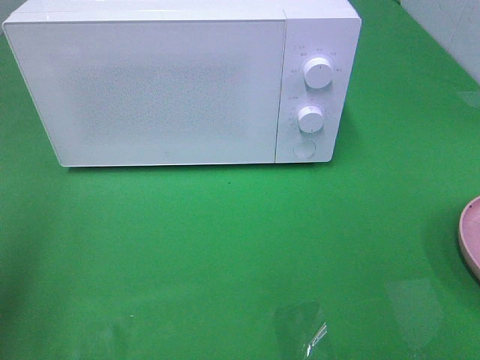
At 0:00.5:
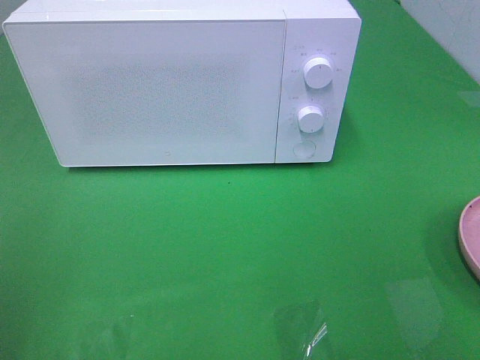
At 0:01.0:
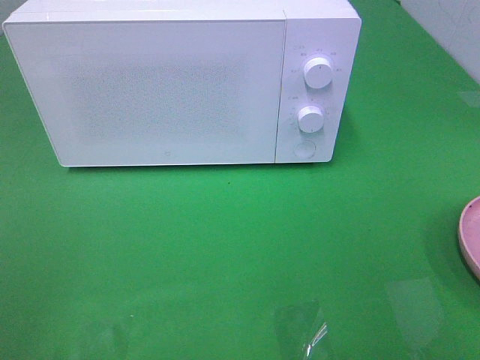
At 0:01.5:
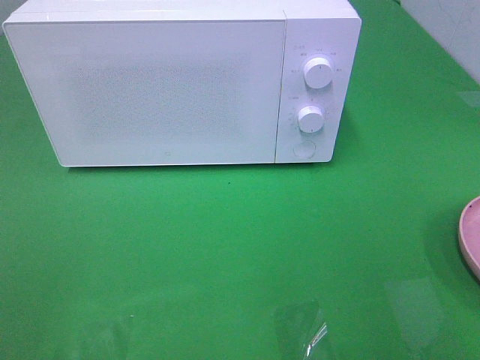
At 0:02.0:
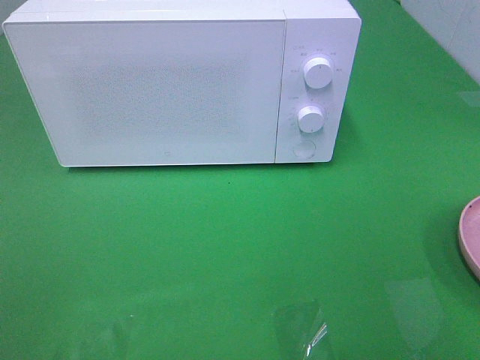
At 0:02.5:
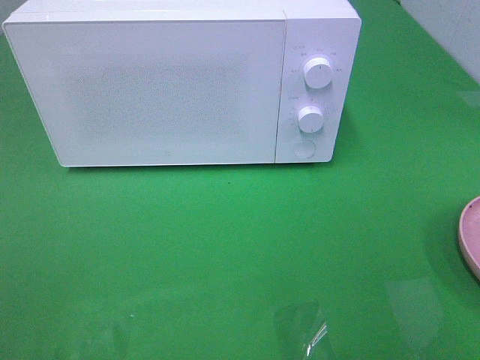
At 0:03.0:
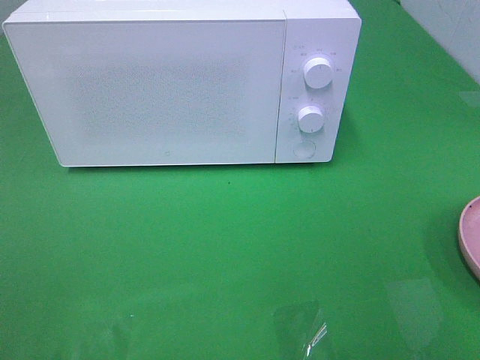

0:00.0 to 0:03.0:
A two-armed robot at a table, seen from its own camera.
Task of the whole recording: Heat the burger.
0:00.0 to 0:01.5: The left gripper goes approximately 15 cm backward.

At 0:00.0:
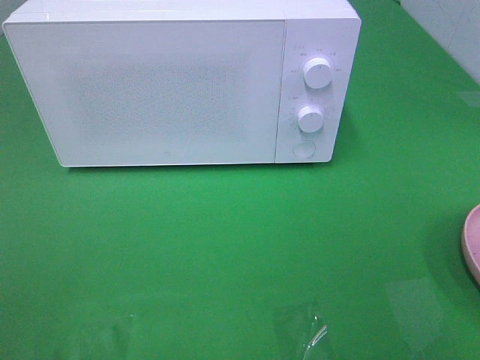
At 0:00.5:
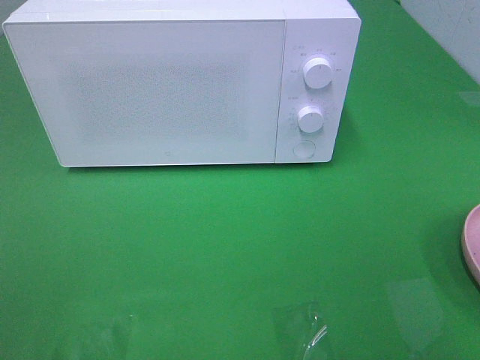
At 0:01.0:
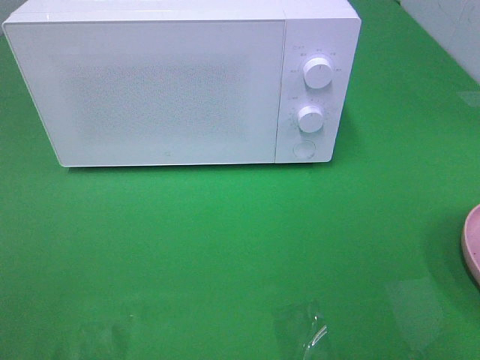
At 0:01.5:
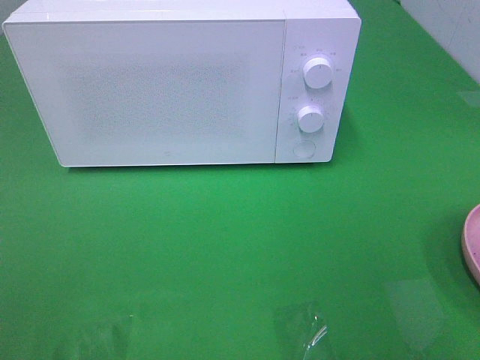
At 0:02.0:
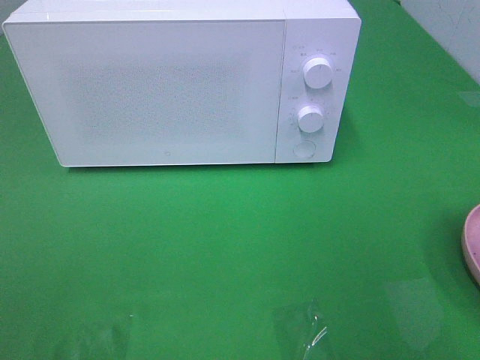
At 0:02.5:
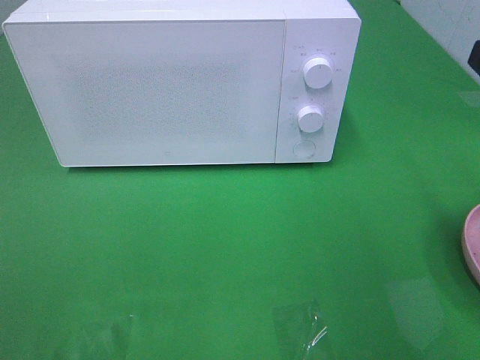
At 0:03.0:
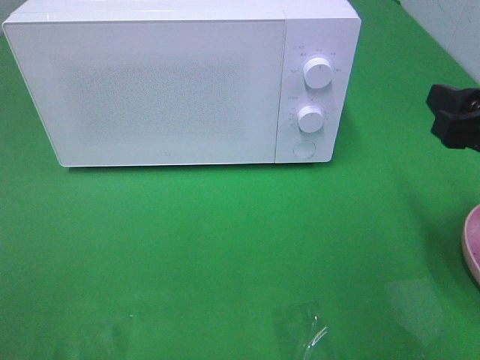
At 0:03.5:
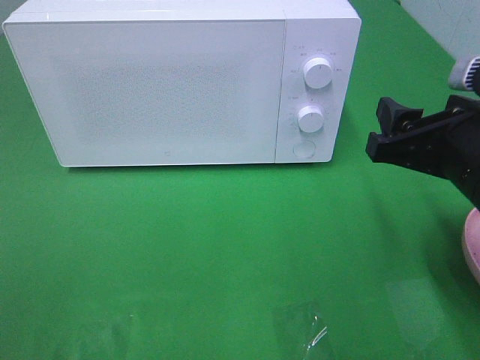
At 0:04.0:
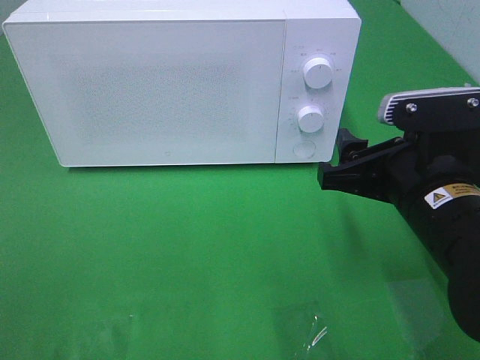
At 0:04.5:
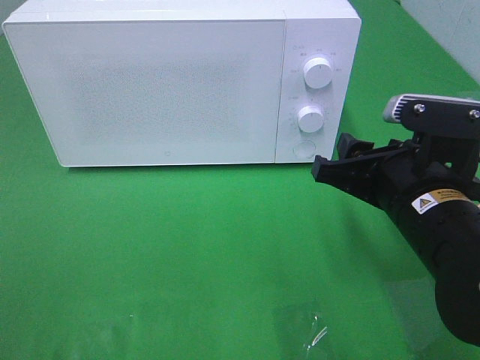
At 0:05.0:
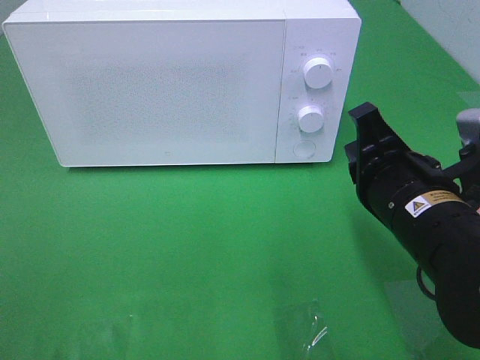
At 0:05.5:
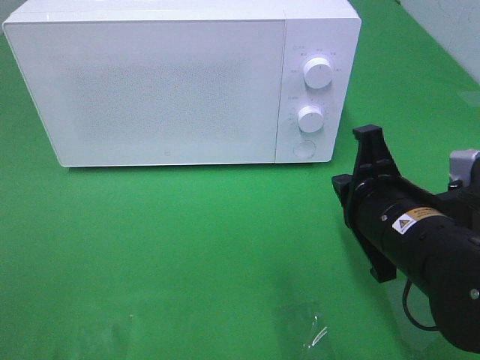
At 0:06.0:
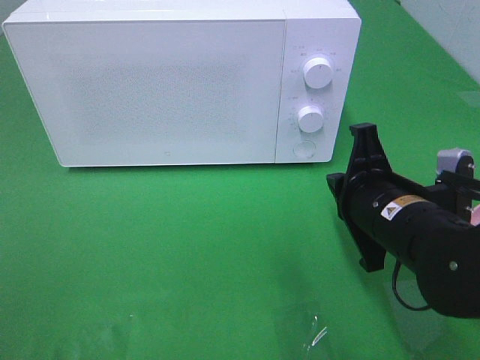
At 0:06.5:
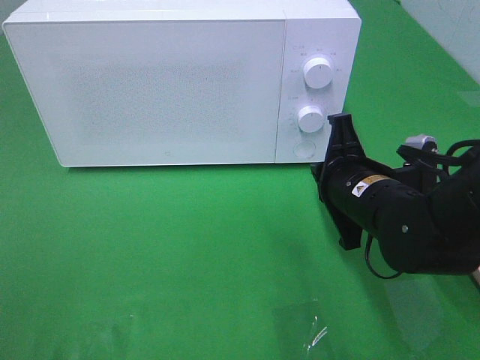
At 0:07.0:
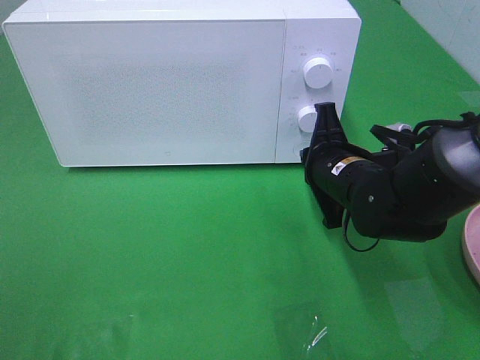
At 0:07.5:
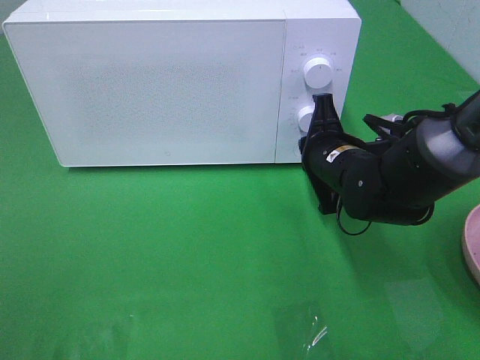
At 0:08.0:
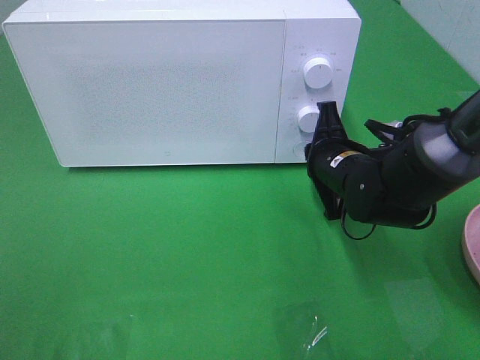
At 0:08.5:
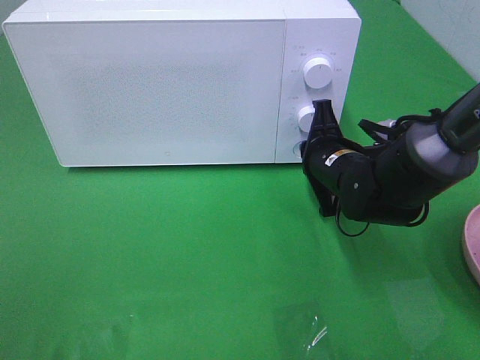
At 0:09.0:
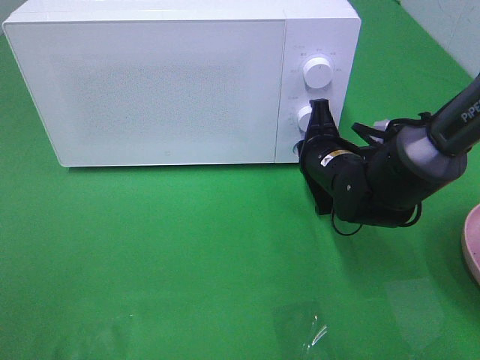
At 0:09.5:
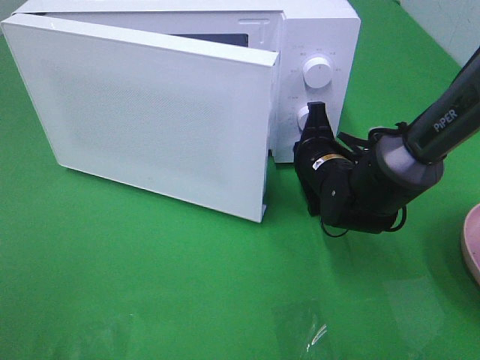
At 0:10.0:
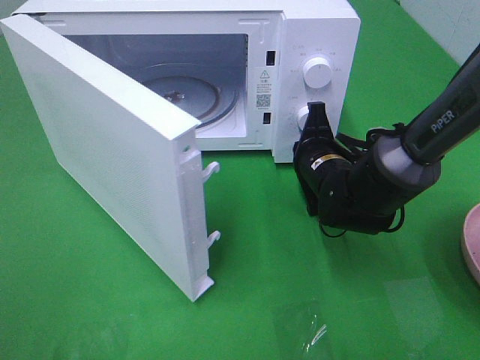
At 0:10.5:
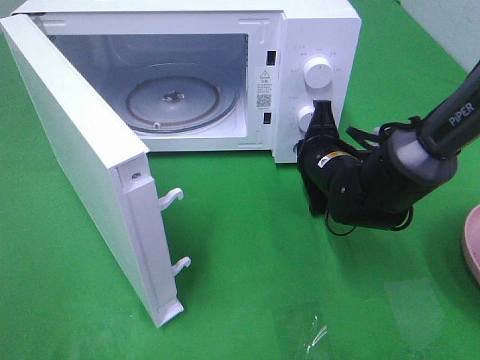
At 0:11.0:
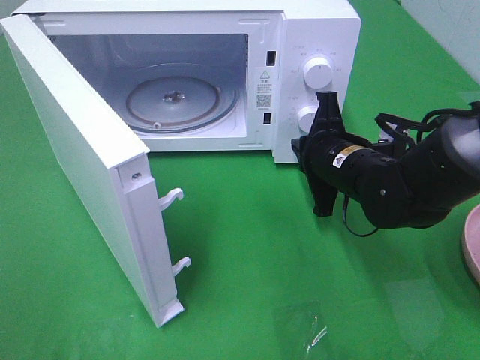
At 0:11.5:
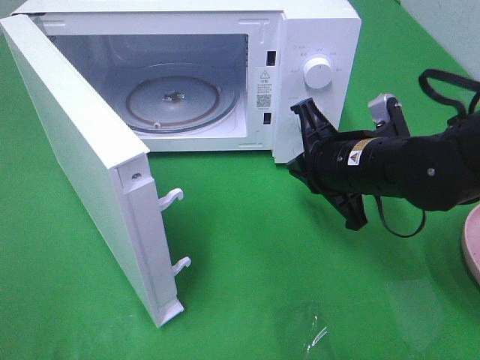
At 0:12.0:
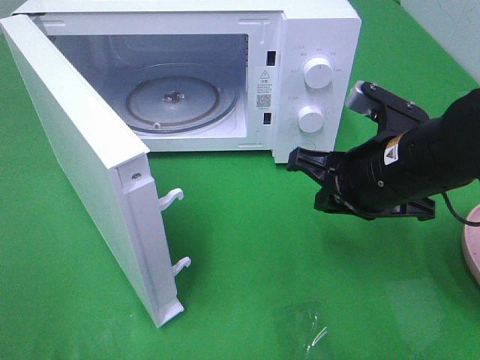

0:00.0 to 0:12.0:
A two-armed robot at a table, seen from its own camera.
Task of the whole recording: Heat the burger.
Step, 0:00.0 to 0:09.0: Right hand: press the switch.
0:02.0 to 0:04.0: The right gripper goes about 20 cm downward, to the left and forward.
0:04.0 to 0:06.0: The right gripper ends up some 5 cm from where it was, and closes up.
0:06.0 to 0:08.0: The right gripper moves forward, roughly 10 cm.
0:10.0 to 0:12.0: The right gripper heads backward and upward, covering about 15 cm.

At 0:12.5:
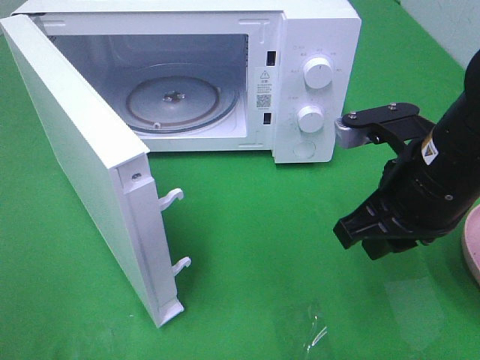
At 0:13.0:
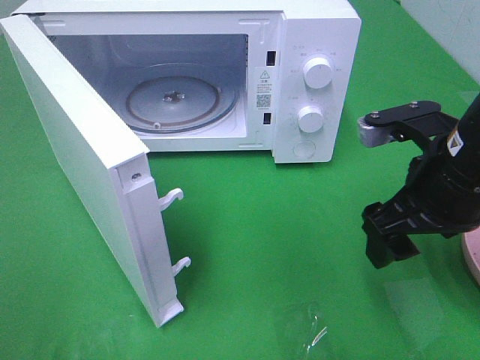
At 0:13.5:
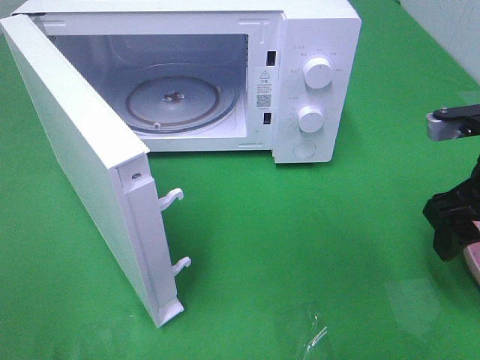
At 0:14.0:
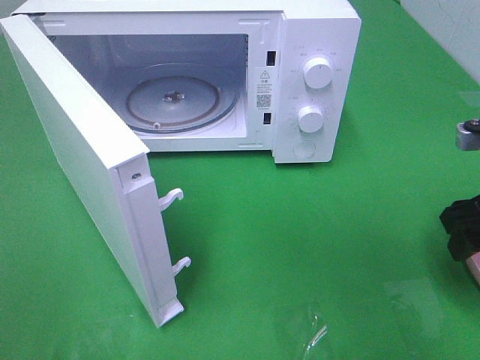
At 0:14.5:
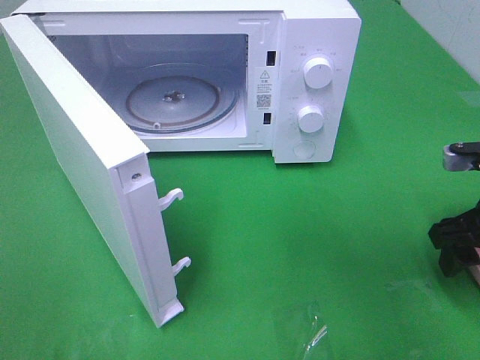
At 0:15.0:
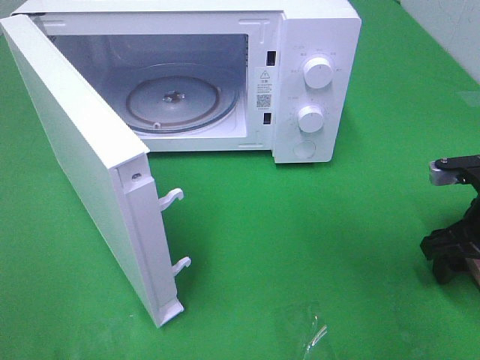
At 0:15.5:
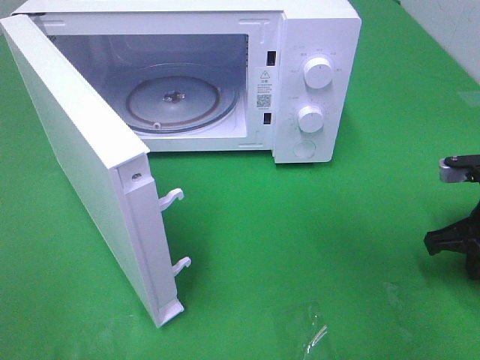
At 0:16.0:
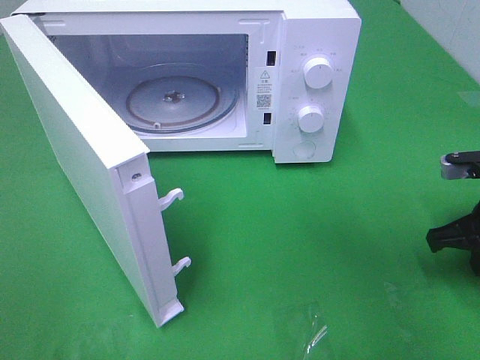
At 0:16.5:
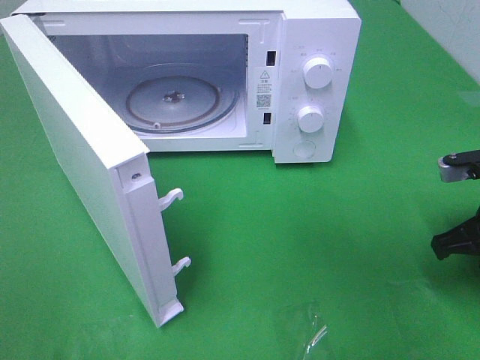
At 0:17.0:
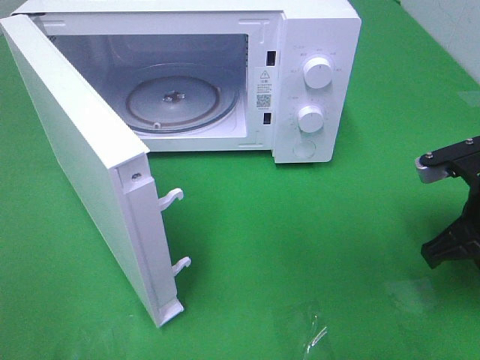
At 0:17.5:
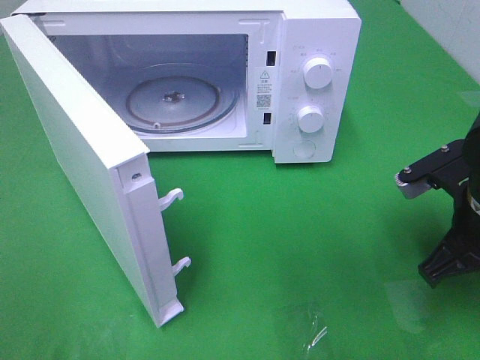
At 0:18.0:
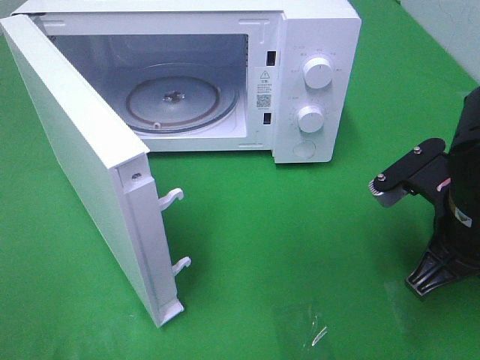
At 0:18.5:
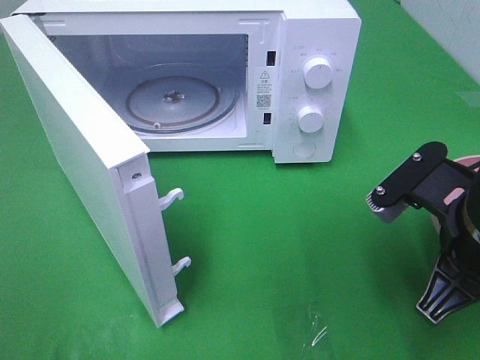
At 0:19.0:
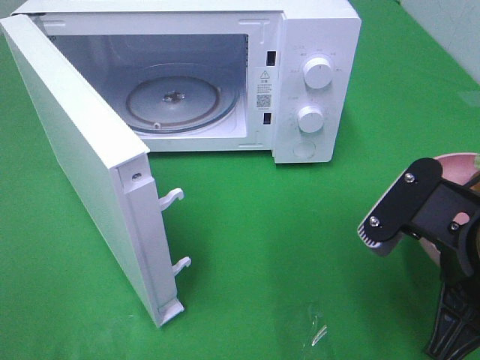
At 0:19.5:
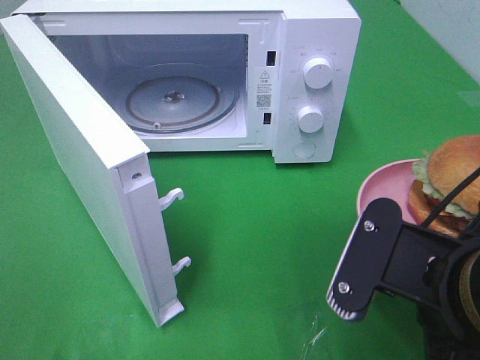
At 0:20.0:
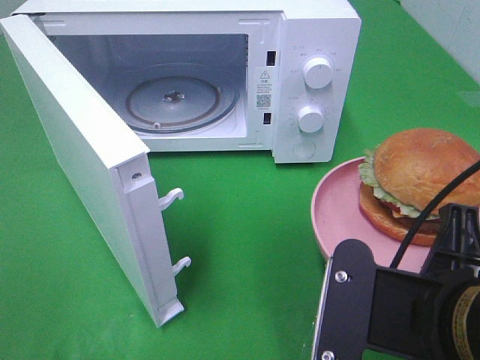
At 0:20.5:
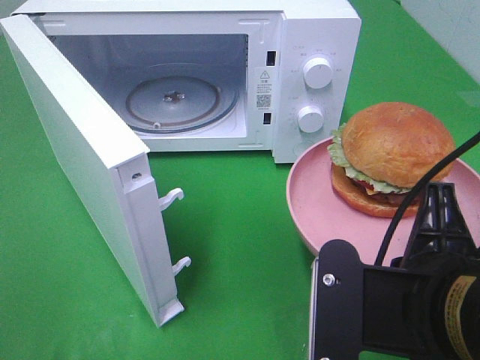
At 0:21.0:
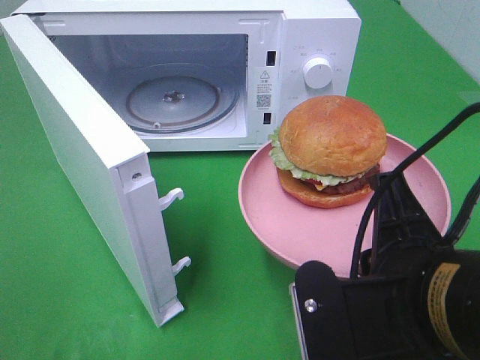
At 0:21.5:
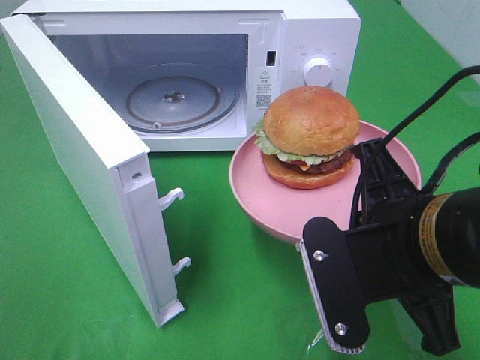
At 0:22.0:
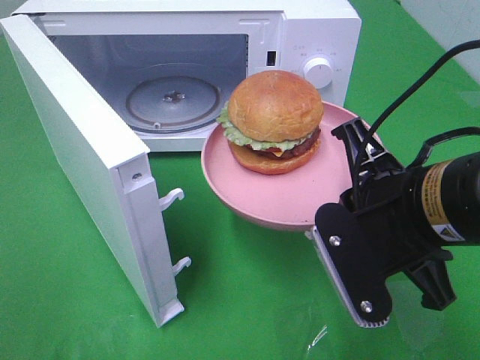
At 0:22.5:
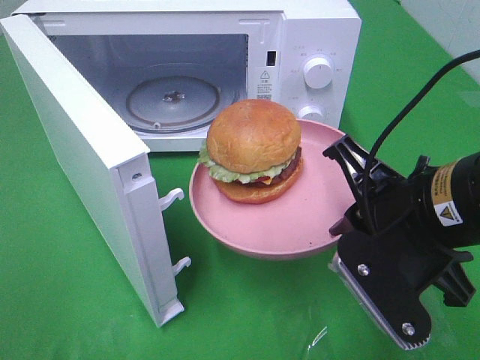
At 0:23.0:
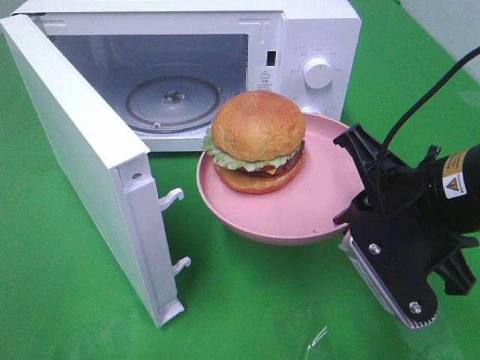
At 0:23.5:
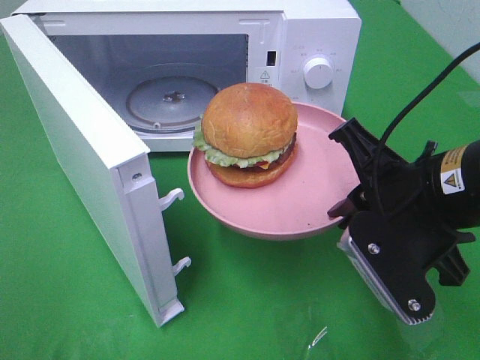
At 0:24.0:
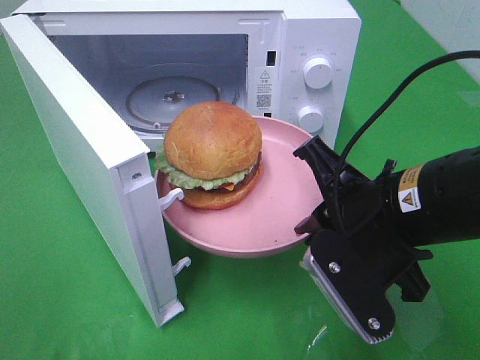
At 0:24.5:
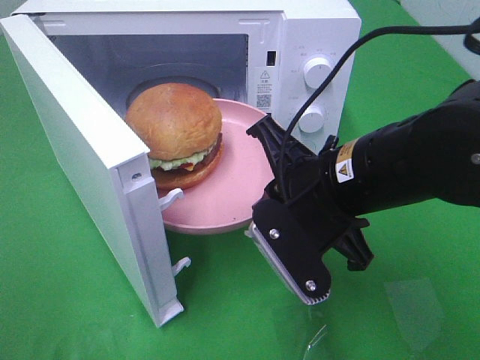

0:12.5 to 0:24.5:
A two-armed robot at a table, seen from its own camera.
Task of the whole recording: Heat the burger.
Step, 0:12.5 to 0:15.5: Right hand: grab the plate with the hamburger.
0:12.5 to 0:14.5: The right gripper travels to the right and downward by about 15 cm, and opens its fingers.
0:14.5 to 0:16.5: The right gripper closes its fingers.
0:16.5 to 0:18.5: The right gripper shifts about 10 cm to the left and backward.
0:18.5 to 0:20.5: The right gripper shifts approximately 10 cm backward and to the left.
0:20.5 to 0:22.5: The right gripper goes some 10 cm forward.
0:22.5 to 0:24.5: The right gripper moves to the left, some 5 cm.
